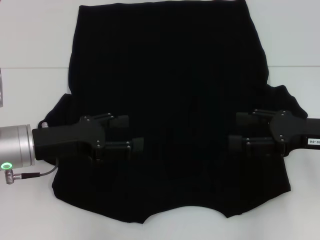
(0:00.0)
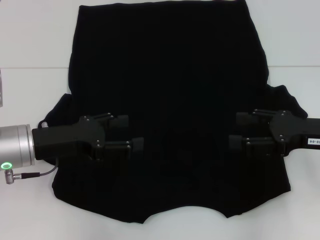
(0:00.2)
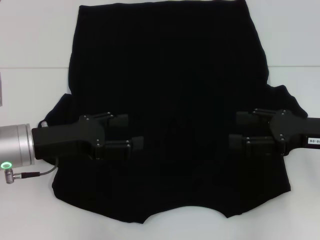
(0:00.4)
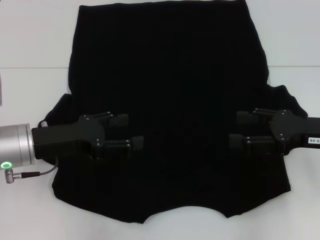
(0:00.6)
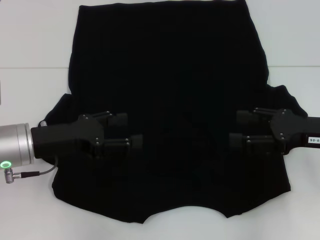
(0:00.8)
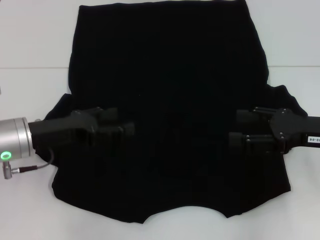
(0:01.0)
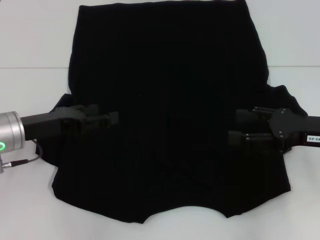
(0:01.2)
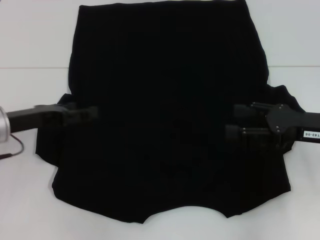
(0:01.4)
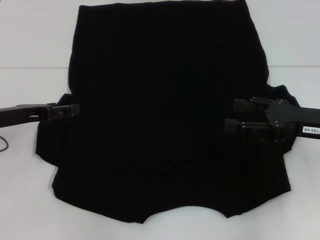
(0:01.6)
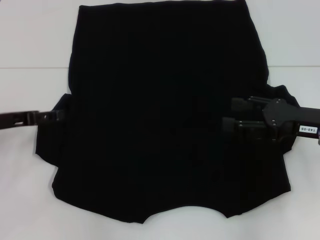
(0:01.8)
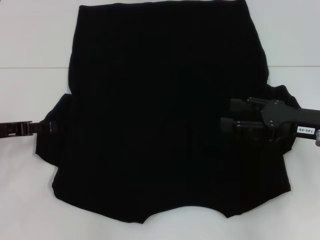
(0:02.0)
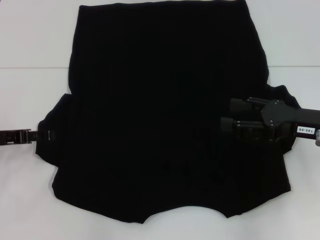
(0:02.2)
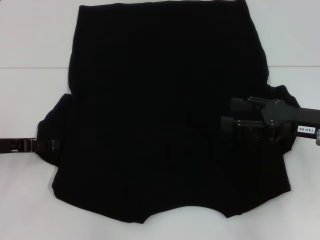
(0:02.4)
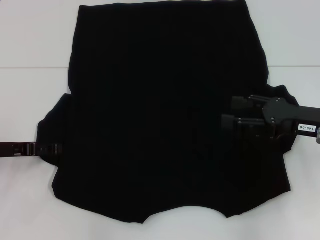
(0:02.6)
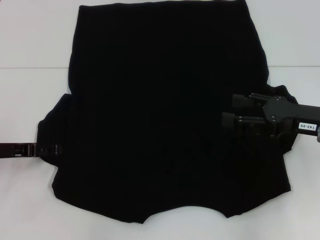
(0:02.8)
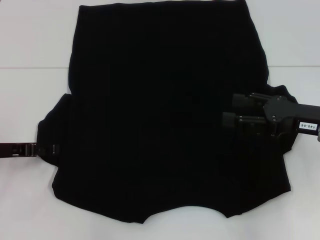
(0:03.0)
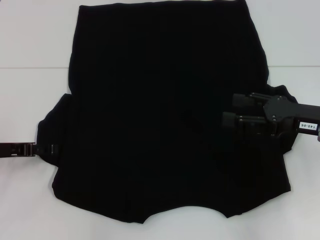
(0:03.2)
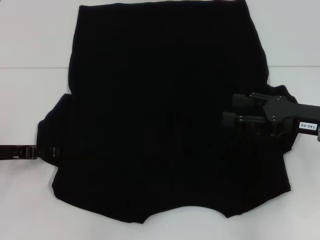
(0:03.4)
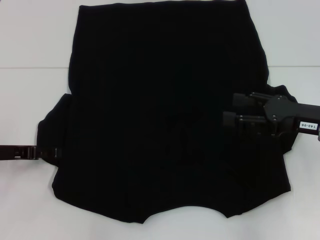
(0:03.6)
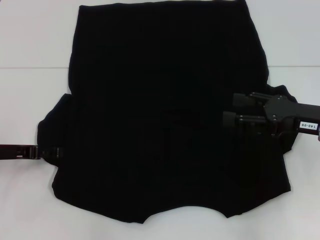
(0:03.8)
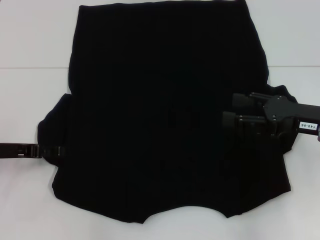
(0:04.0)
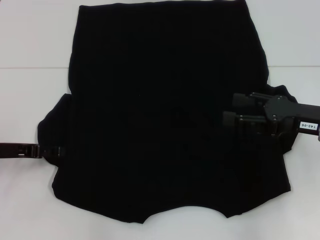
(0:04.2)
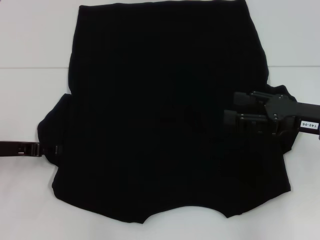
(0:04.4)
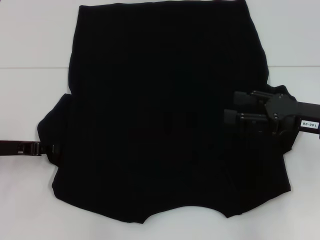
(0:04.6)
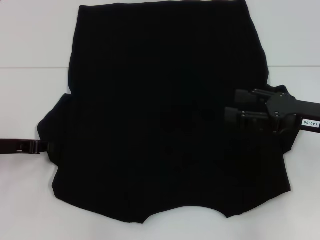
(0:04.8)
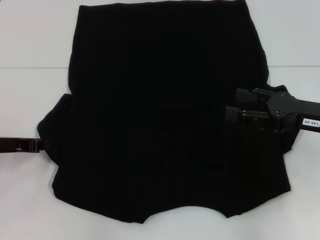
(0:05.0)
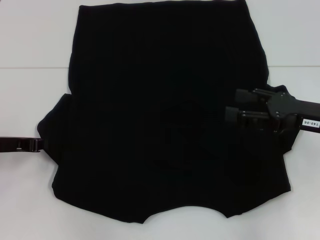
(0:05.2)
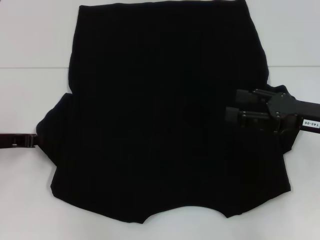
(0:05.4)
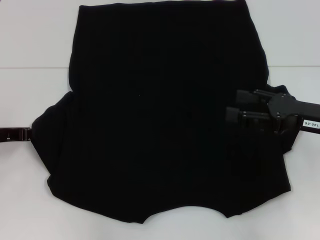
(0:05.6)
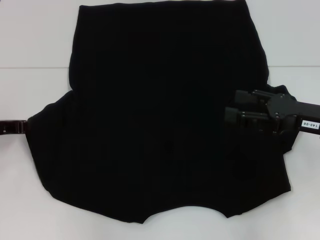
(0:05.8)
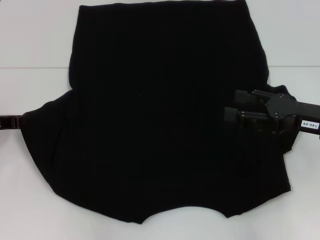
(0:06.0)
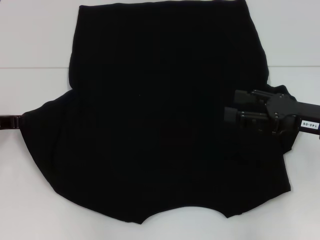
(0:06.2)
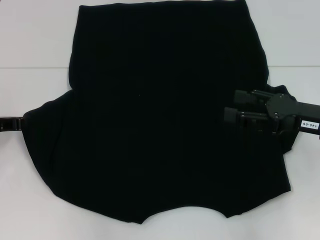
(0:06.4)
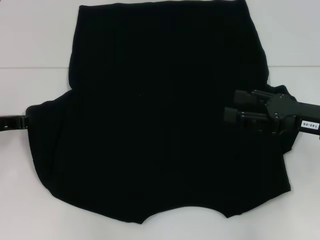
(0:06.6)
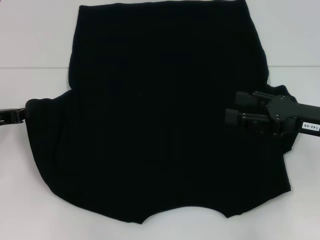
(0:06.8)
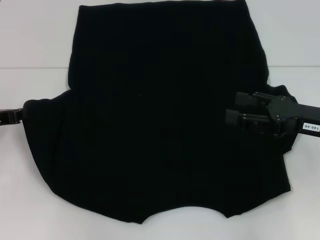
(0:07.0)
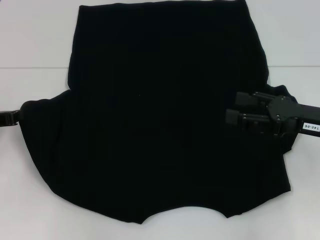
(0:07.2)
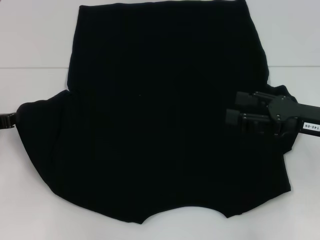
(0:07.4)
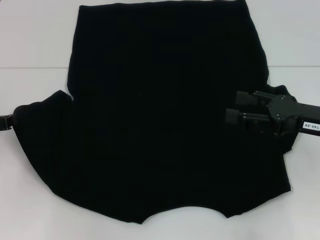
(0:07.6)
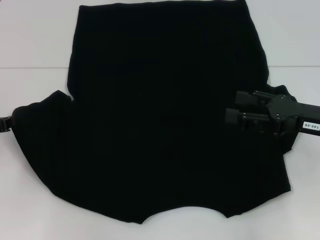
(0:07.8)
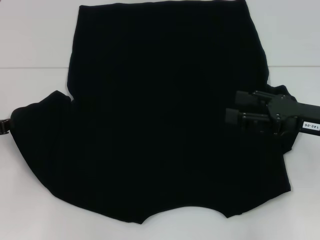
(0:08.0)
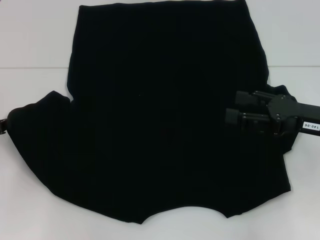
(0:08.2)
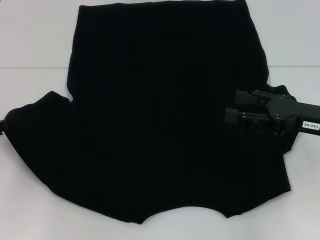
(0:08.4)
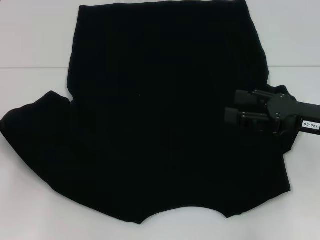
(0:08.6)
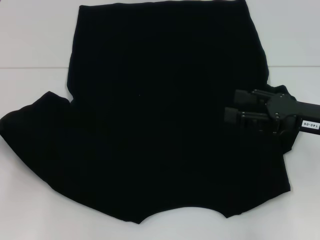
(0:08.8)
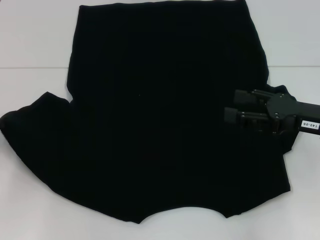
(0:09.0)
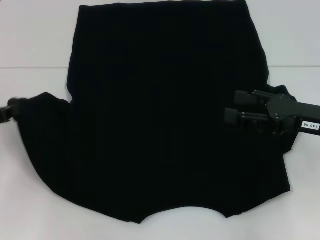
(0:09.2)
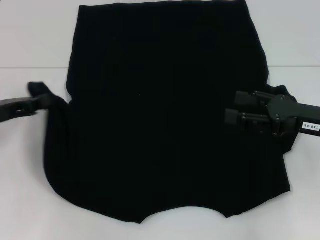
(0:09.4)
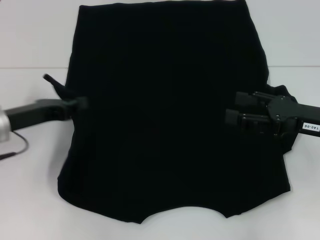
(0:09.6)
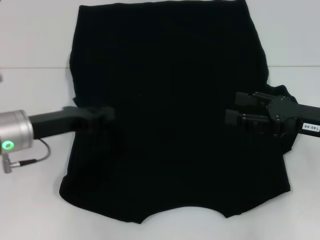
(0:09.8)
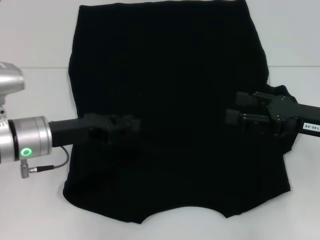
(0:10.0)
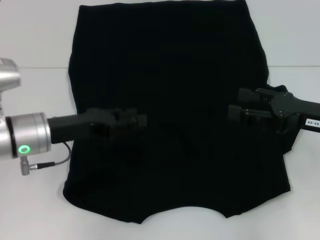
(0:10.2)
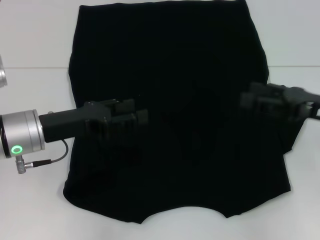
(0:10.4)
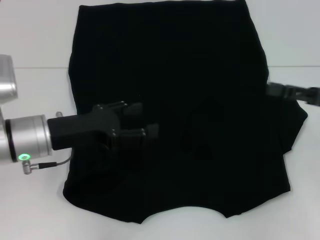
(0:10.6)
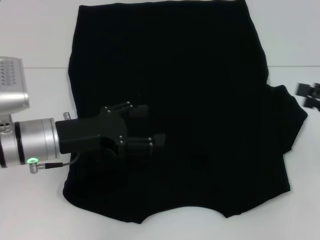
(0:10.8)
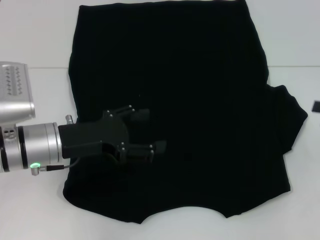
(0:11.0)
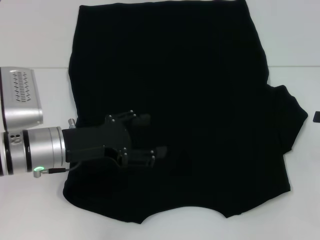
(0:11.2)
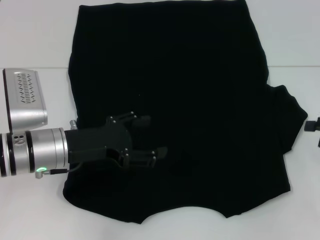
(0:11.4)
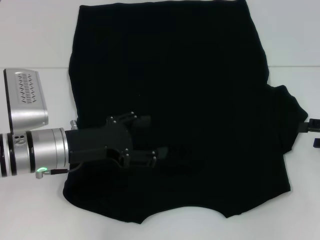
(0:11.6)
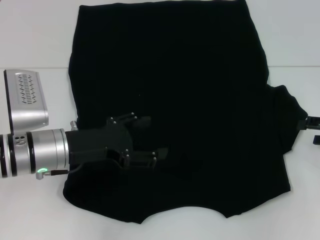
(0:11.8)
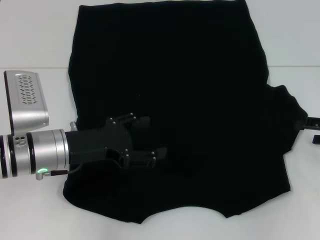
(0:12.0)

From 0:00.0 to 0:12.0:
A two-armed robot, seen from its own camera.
Step, from 0:00.0 to 0:10.6: Fold the bottom left sleeve with your left hand.
From 0:00.0 to 0:01.6: The left gripper goes some 5 cm to the left.
From 0:01.6 to 0:03.0: The grippers stay close to where they were, moving slightly.
From 0:03.0 to 0:04.4: Both grippers stay about where they are.
From 0:04.4 to 0:06.0: The left gripper closes up.
From 0:06.0 to 0:09.0: The grippers move only a little.
From 0:09.0 to 0:10.4: The left gripper shifts roughly 15 cm to the right, and opens its fingers.
From 0:10.4 to 0:12.0: The left gripper opens up. The right gripper heads to the right, covering about 10 cm.

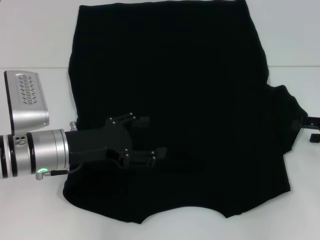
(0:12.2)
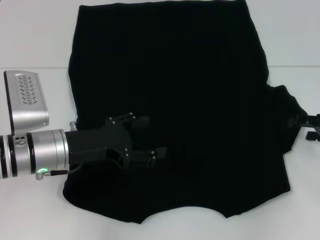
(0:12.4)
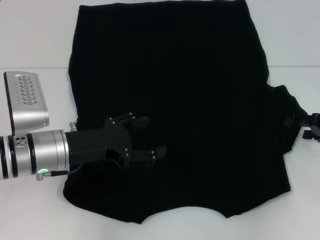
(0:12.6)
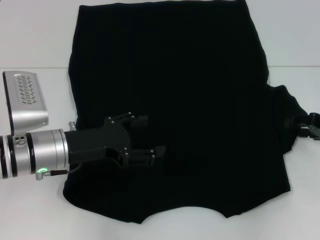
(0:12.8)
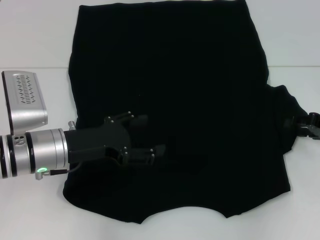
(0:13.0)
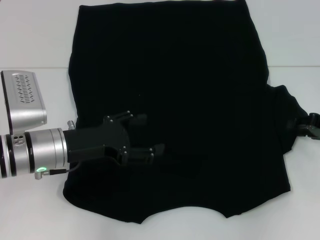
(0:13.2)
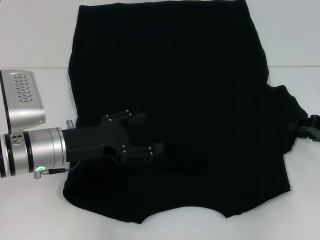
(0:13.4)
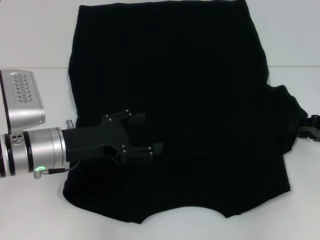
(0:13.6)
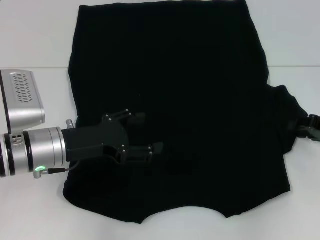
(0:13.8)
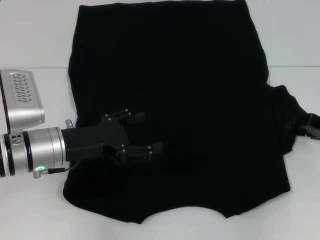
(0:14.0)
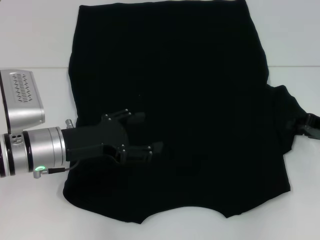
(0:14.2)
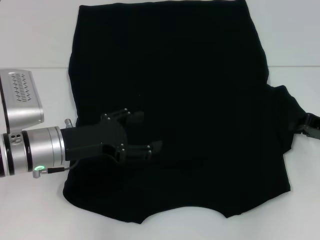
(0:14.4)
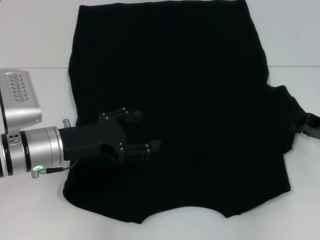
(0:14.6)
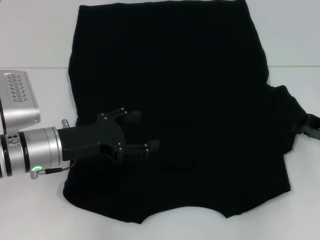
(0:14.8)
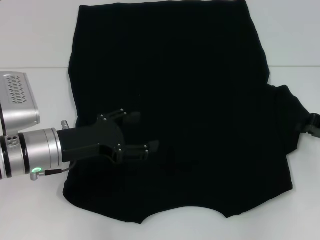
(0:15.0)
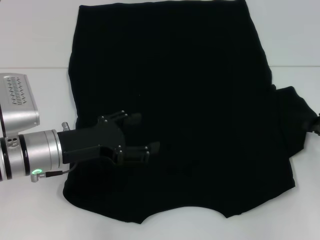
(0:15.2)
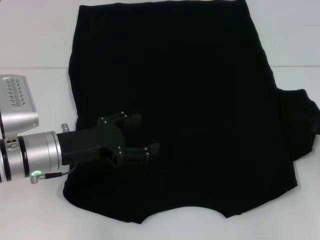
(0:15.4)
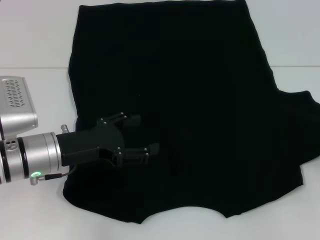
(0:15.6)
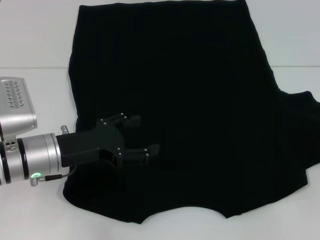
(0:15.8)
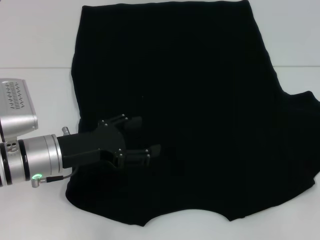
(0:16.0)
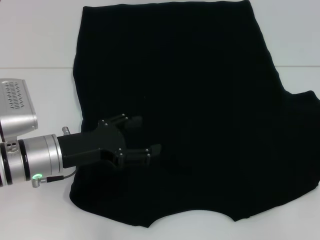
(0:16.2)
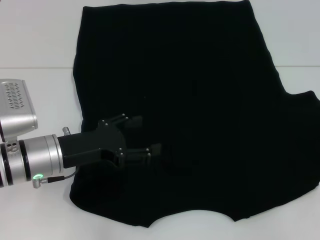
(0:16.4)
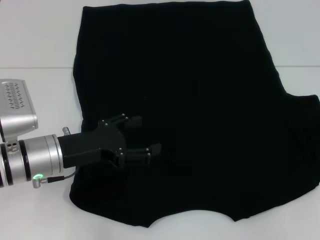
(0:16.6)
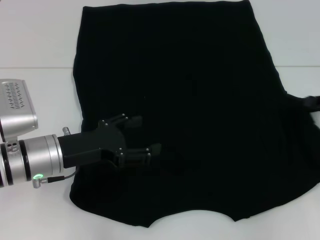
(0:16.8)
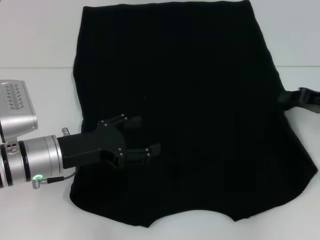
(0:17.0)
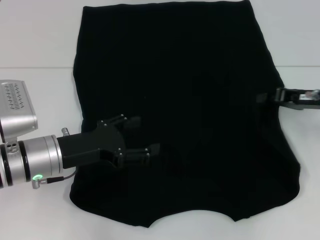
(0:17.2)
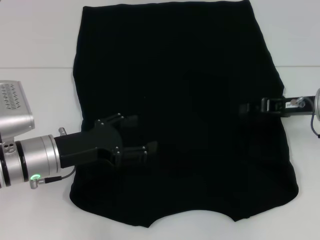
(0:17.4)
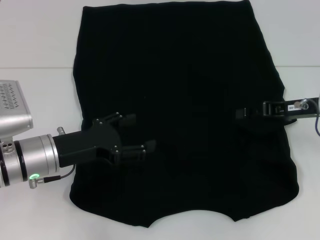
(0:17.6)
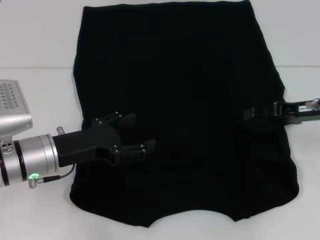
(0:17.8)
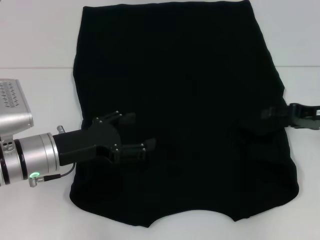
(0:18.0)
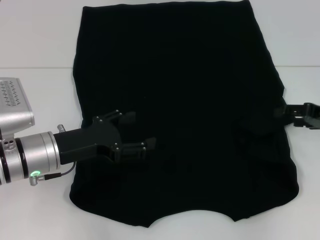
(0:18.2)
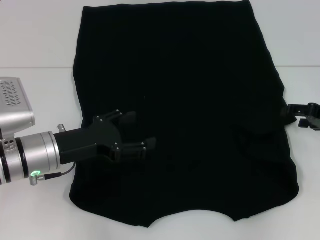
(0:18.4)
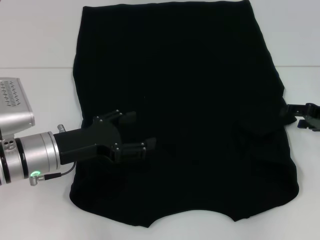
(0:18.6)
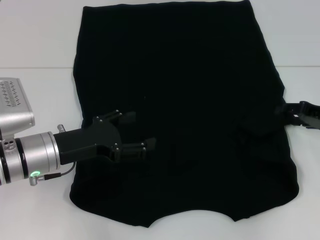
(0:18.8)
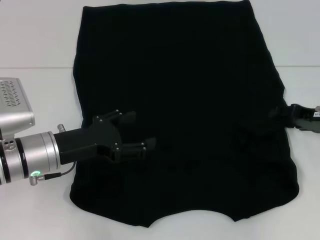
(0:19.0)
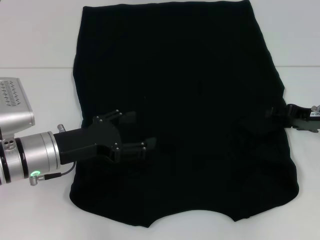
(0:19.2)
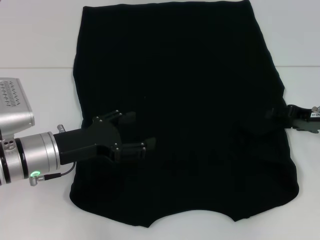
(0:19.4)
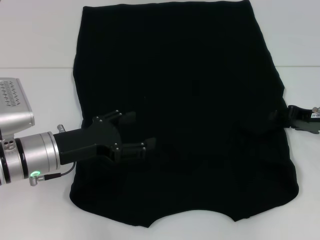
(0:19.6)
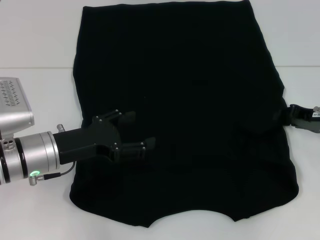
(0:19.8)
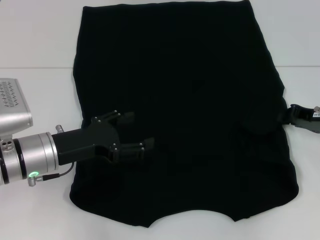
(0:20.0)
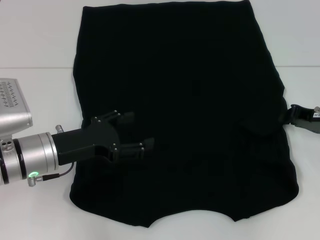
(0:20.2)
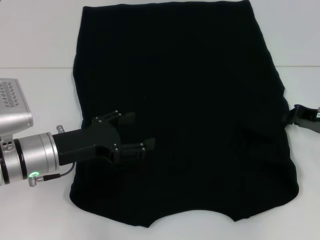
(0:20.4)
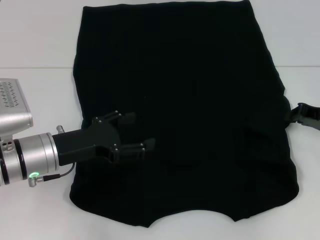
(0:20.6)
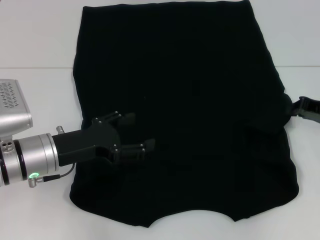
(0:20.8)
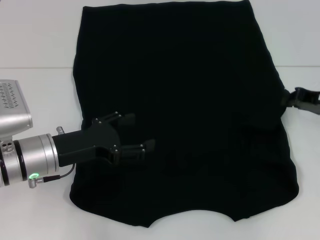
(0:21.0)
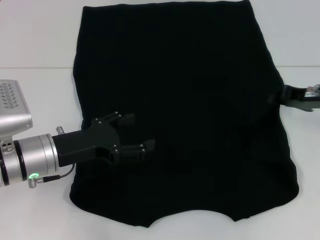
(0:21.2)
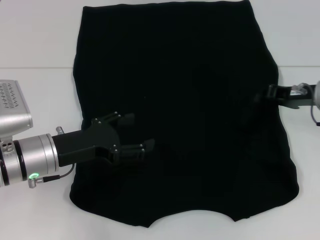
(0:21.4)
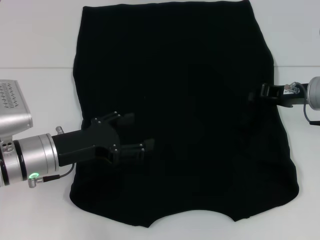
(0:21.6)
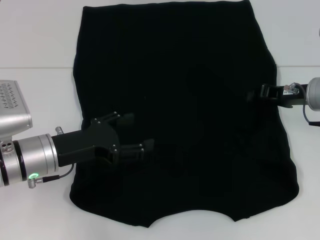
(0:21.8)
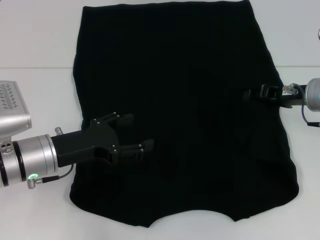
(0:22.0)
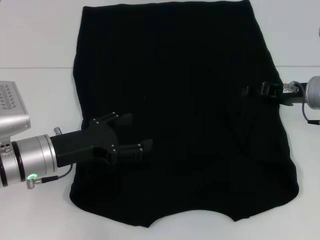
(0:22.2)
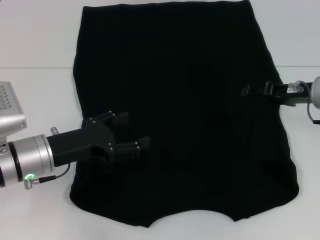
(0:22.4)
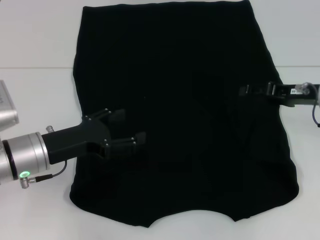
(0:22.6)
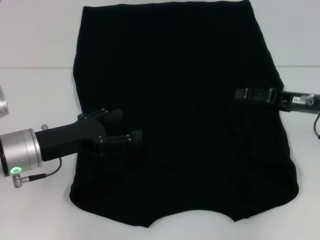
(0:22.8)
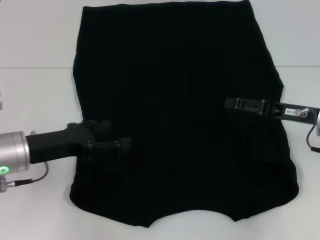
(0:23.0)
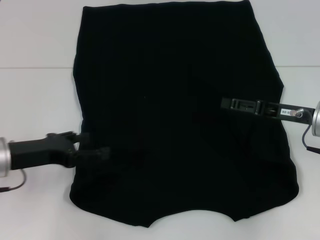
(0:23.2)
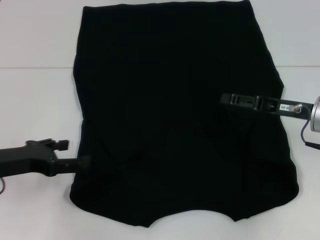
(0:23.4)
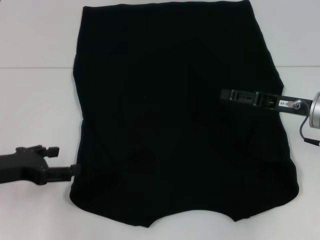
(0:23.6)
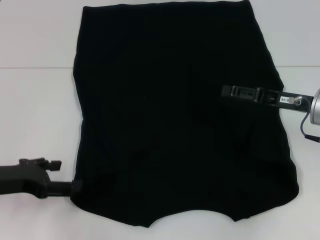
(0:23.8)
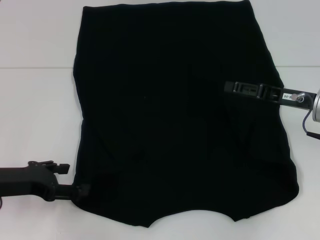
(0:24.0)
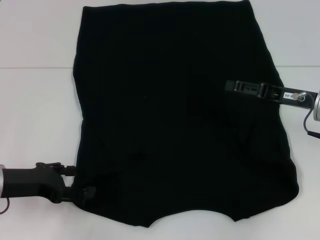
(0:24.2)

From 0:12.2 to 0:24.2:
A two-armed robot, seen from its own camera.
Step, from 0:12.2 to 0:18.0: Fold the bottom right sleeve with your right hand.
From 0:13.8 to 0:15.2: The right gripper closes up.
From 0:15.2 to 0:16.6: The grippers make only small movements.
From 0:16.6 to 0:18.2: The right gripper travels to the left by some 5 cm, and opens up.
From 0:18.2 to 0:19.8: The grippers stay close to where they were, moving slightly.
From 0:19.8 to 0:21.2: The right gripper closes up.
From 0:21.2 to 0:22.6: The right gripper opens its fingers.
From 0:22.6 to 0:24.2: The left gripper shifts approximately 5 cm to the left.
